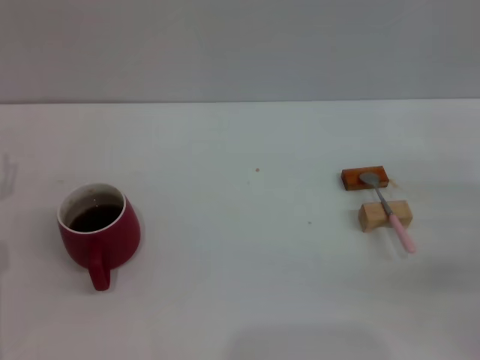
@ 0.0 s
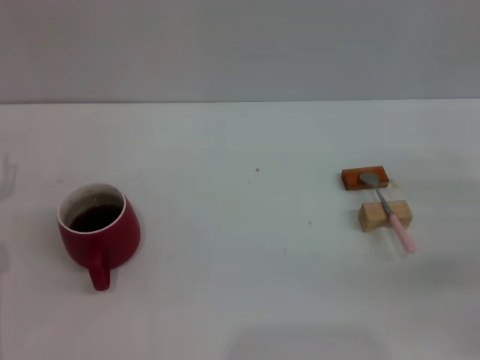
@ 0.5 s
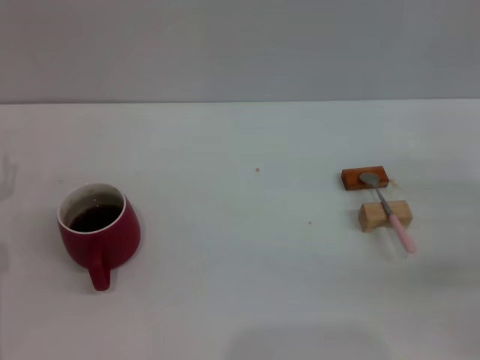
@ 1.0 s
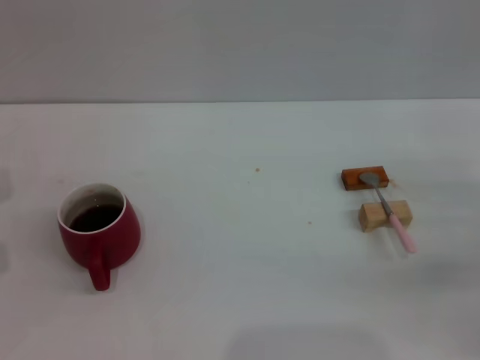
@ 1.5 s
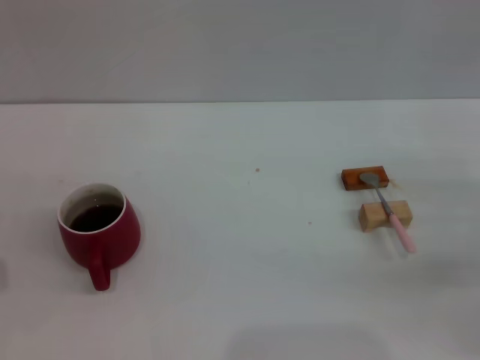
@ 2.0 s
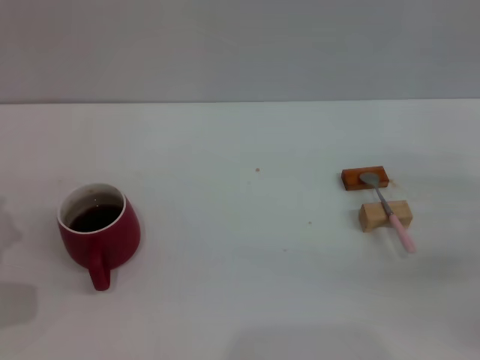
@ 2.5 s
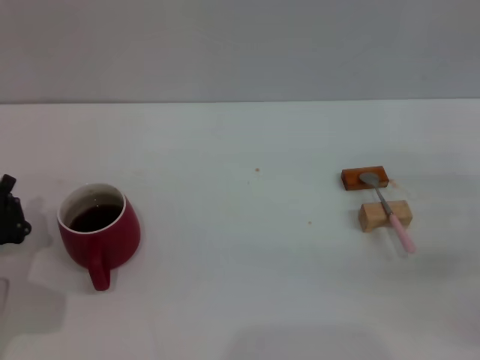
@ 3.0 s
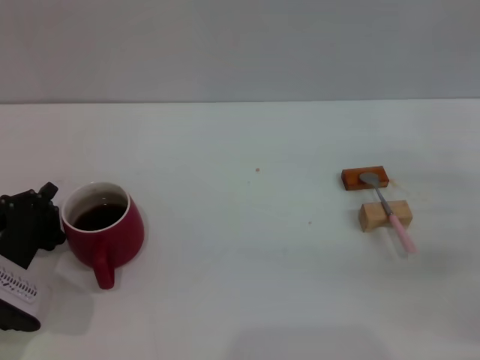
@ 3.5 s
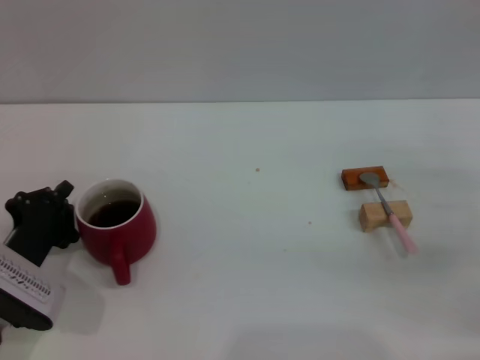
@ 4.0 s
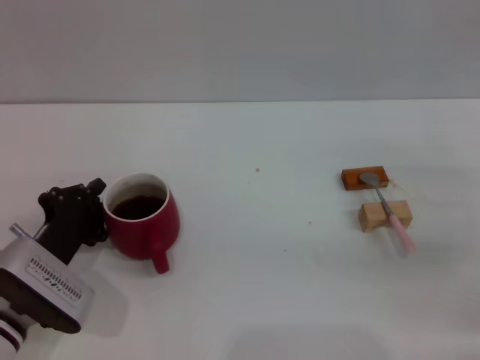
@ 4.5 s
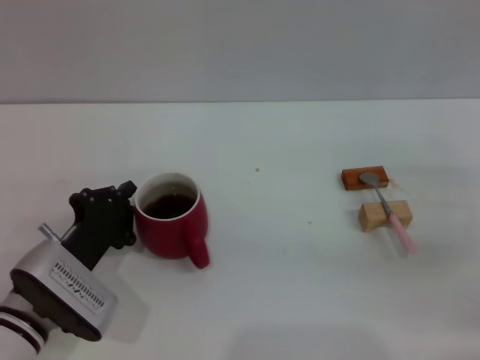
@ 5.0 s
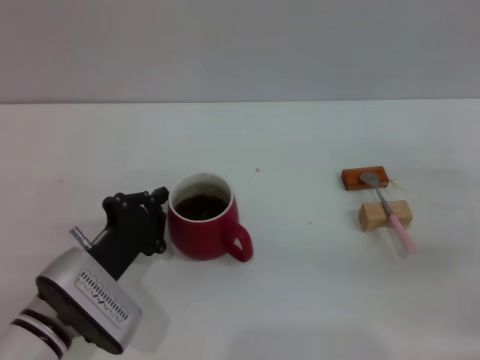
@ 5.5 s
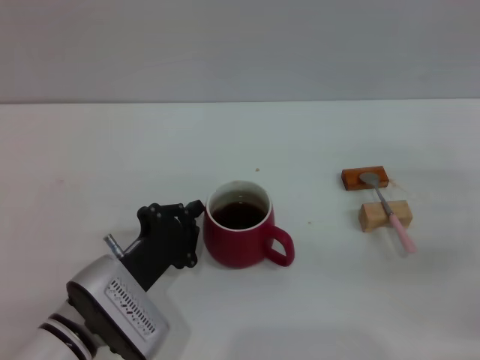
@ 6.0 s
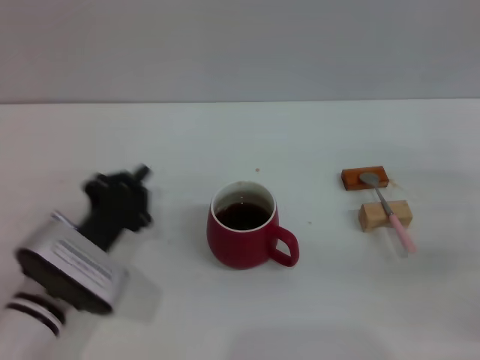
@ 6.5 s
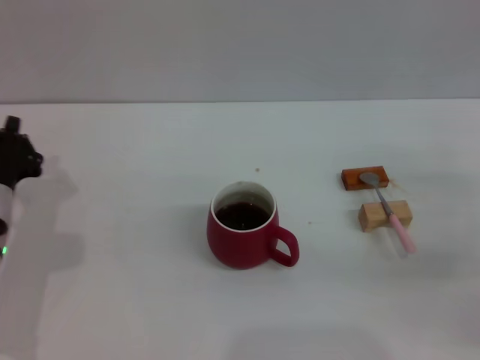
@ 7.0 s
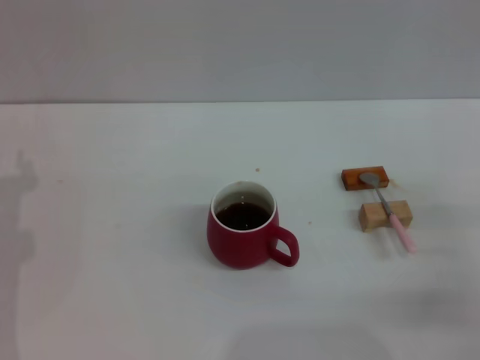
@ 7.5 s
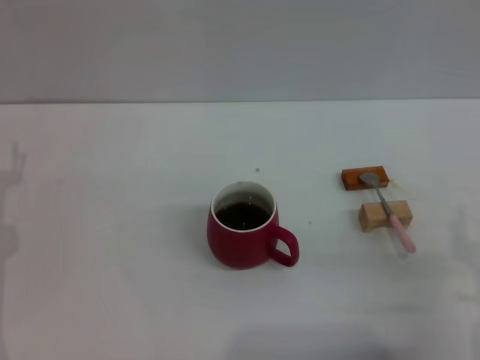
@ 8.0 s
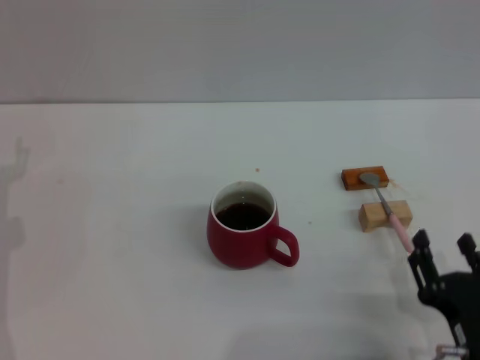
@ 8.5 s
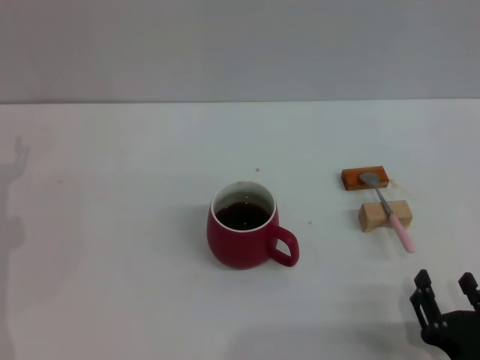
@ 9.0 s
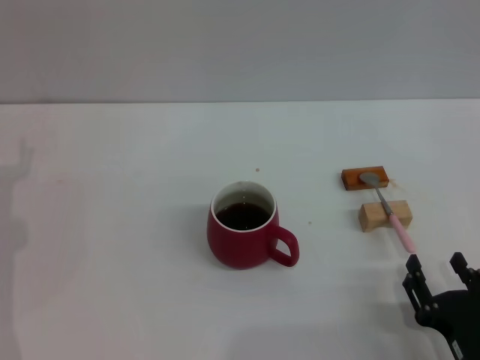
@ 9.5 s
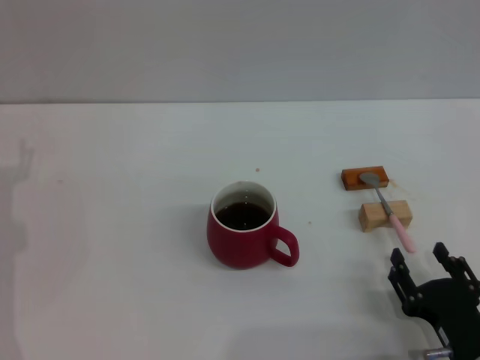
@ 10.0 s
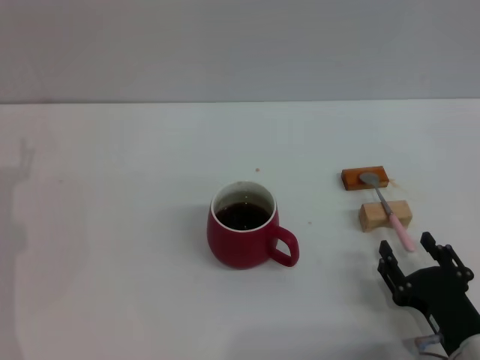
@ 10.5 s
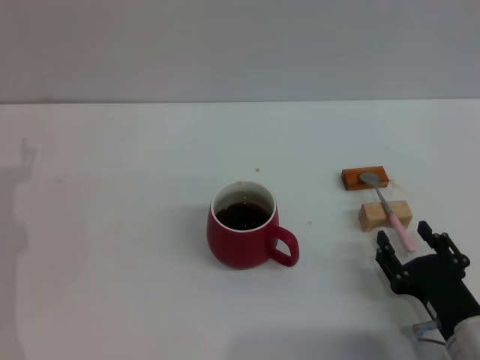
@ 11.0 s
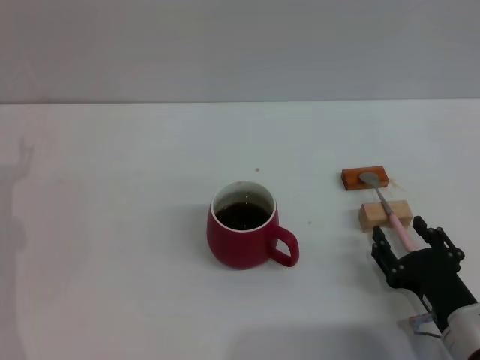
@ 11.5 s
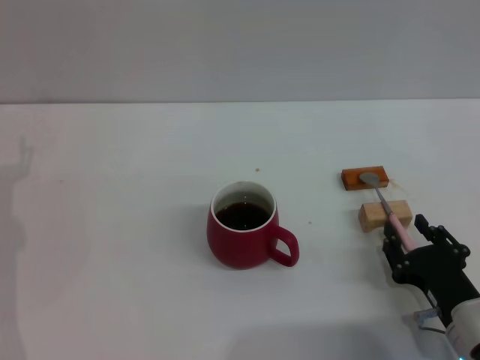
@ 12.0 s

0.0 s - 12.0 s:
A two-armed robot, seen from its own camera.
Task of the whole recording: Move the red cup to the center, lift the pink spoon, stir it three times in the cup, and put the spoon into the cup.
Step, 0.0 s - 6.0 s: Move the cup with coffee to the center of view with the left gripper.
2.0 s - 4.0 s: The left gripper goes about 5 cm to the right.
4.0 s - 6.0 s: The left gripper travels to the right by some 10 cm.
6.0 s - 8.0 s: The right gripper is displaced backward and to the left by about 15 cm. The left gripper moves to the left, some 15 cm, and opens up.
8.0 s - 10.0 s: The right gripper is displaced downward by roughly 5 cm.
10.0 s - 12.0 s: The grippers move only a little.

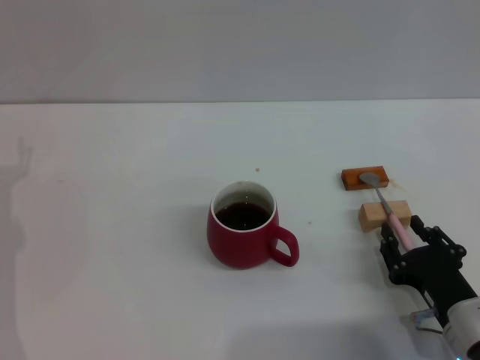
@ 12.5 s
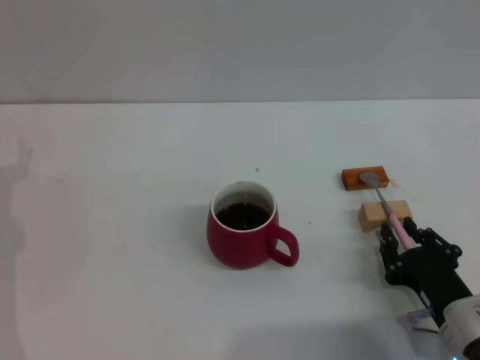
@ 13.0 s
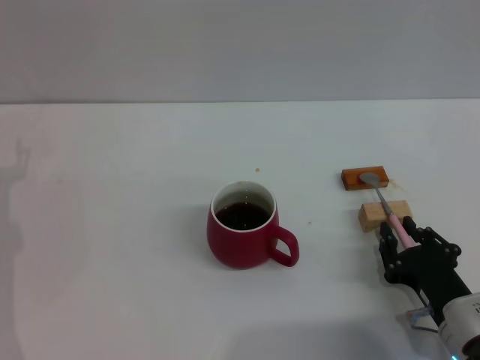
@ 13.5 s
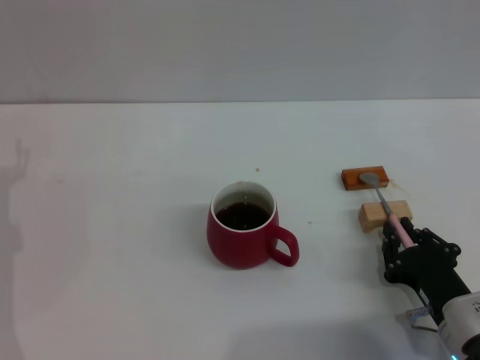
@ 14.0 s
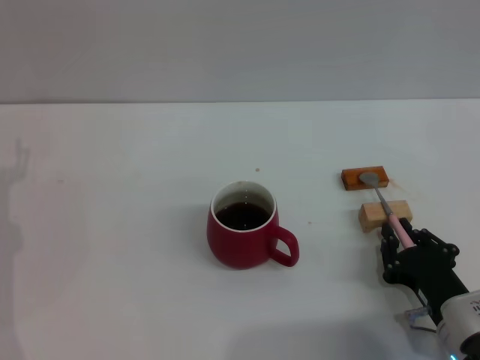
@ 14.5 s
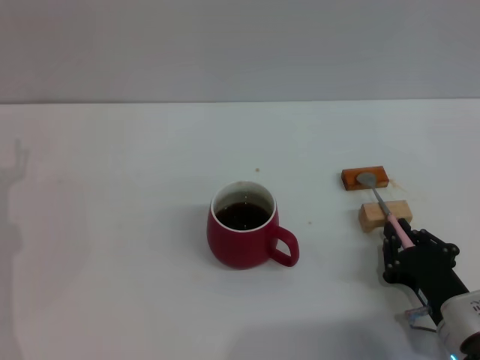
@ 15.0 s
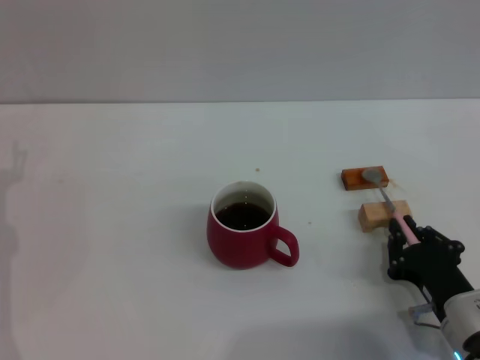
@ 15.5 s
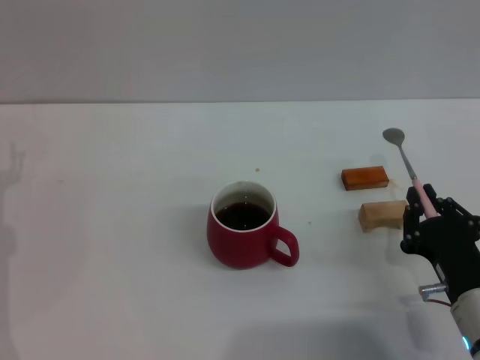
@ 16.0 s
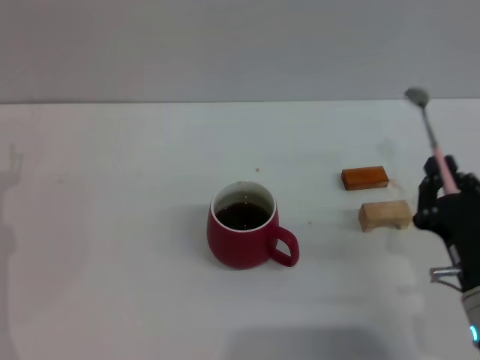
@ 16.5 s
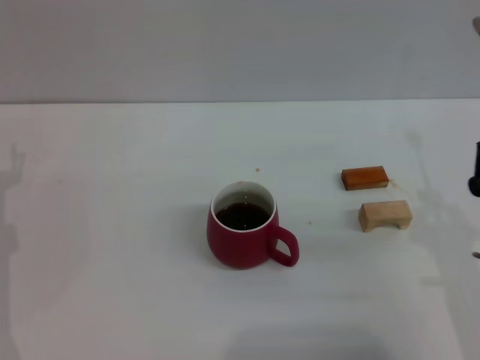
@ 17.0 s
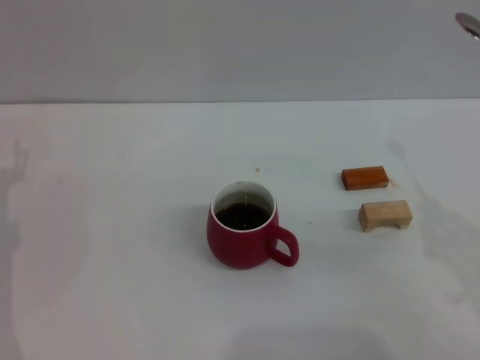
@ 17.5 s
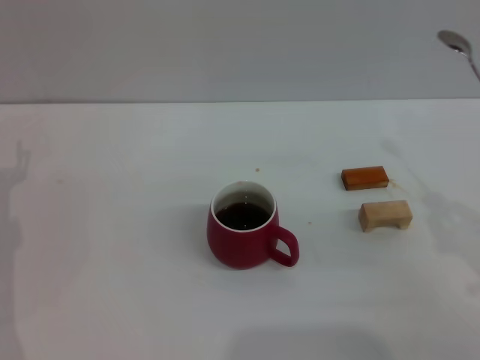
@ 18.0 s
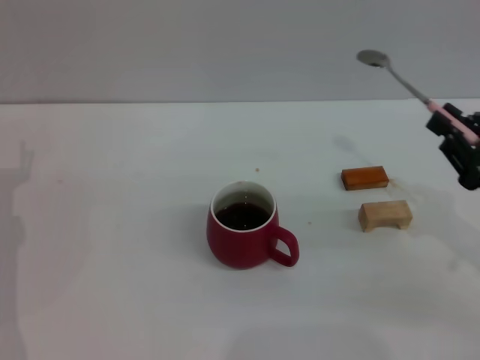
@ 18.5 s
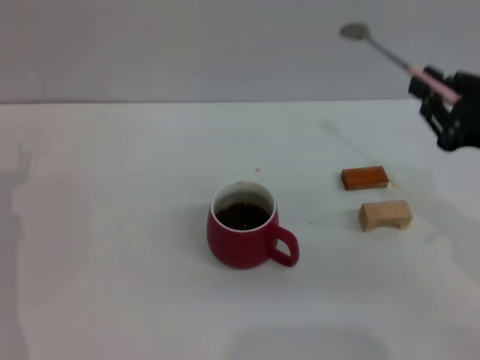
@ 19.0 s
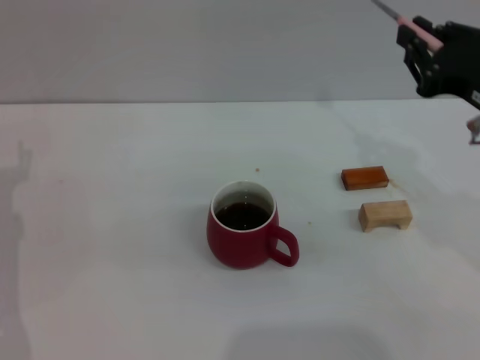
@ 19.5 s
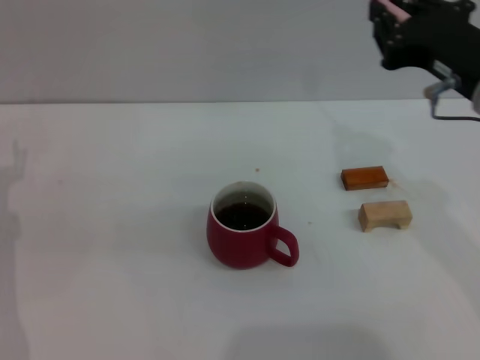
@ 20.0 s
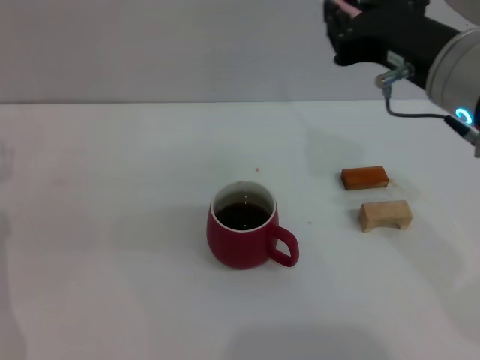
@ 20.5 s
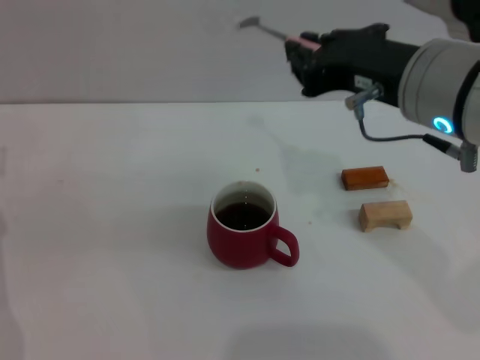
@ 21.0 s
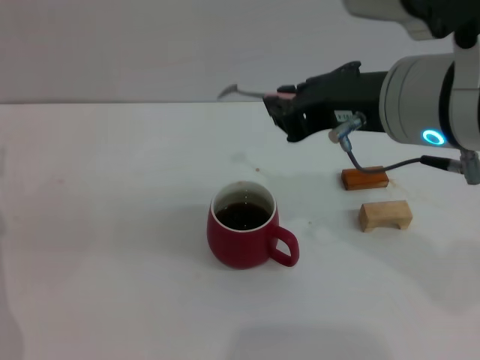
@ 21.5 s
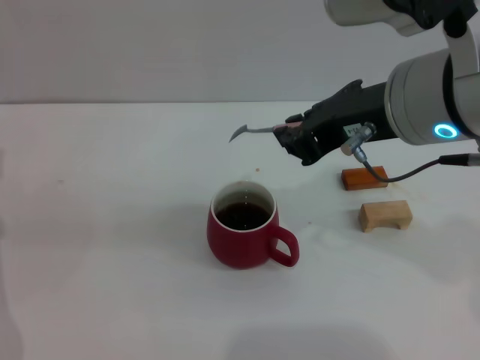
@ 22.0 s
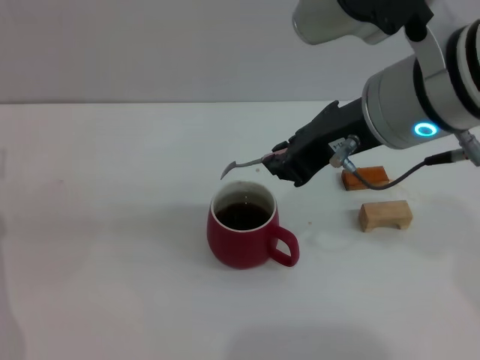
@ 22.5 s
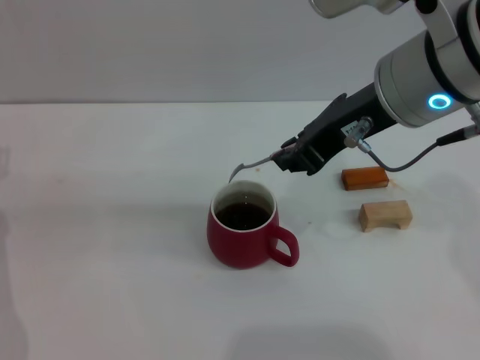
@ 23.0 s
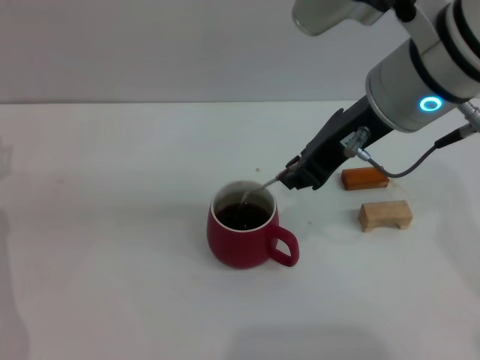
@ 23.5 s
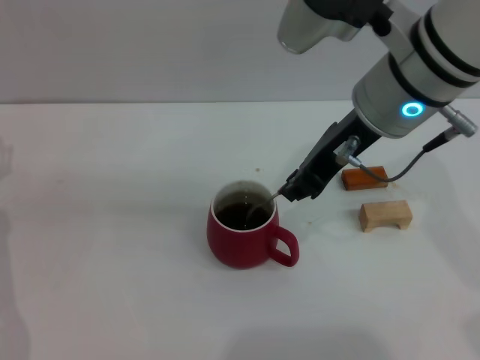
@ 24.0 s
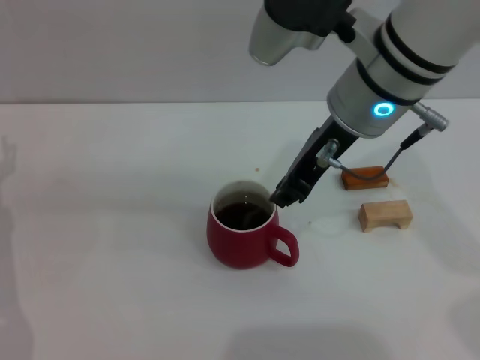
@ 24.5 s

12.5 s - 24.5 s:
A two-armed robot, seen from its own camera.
Task of the whole recording: Move the red cup to the center, lift the pink spoon, stir it three times in the cup, and put the spoon into the cup.
Step, 12.5 s - 16.5 s: Pick up the spoon with the right gripper.
12.5 s - 14.5 s: The right gripper closes up.
14.5 s - 16.5 s: The right gripper is displaced upward by some 5 cm.
16.5 s - 18.5 s: The right gripper travels to the right, upward and forward by some 15 cm.
18.5 s - 20.5 s: The right gripper heads to the left and upward, covering roughly 20 cm.
22.5 s - 24.5 s: The right gripper heads forward, covering some 5 cm.

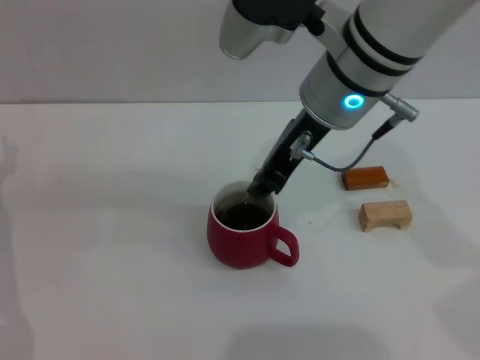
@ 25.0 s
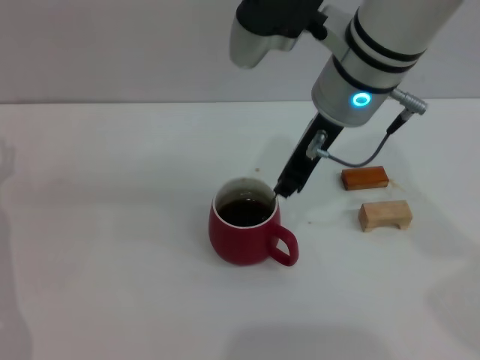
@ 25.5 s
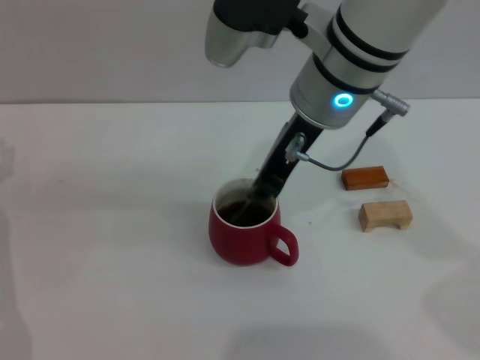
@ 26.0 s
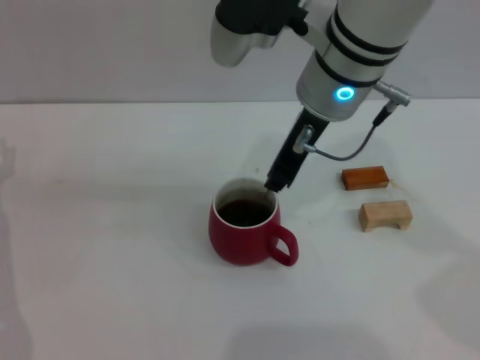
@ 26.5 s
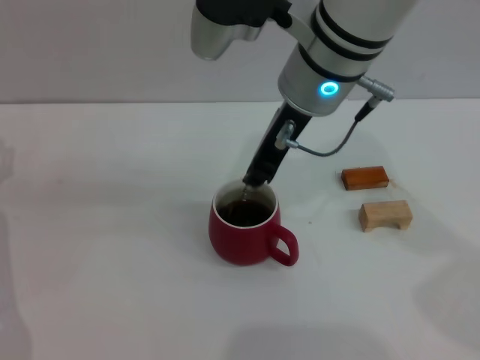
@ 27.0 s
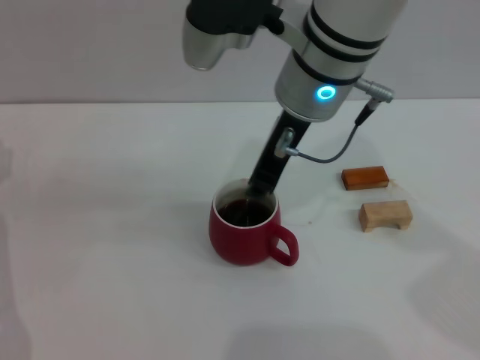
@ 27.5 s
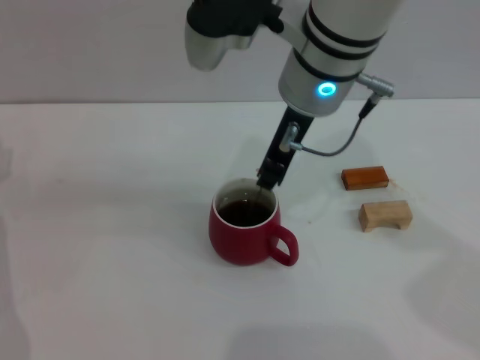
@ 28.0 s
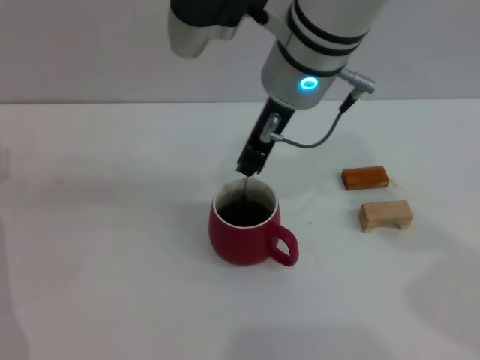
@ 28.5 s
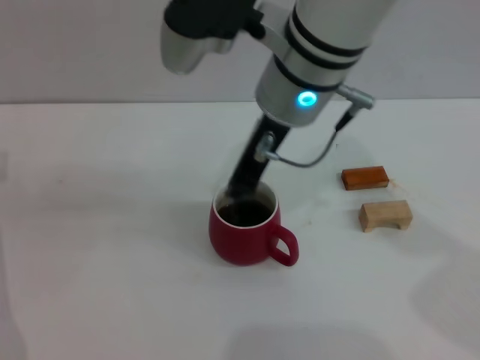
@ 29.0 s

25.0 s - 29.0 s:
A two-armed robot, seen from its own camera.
Task of the whole recording: Move the red cup to the center, lift the pink spoon, stir it three times in the cup, and put the spoon into the cup.
25.0 s - 29.0 s: There are only small adjustments of the grippers.
